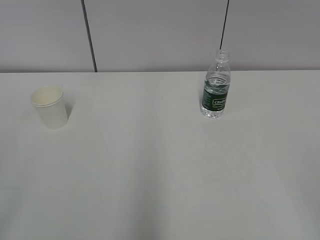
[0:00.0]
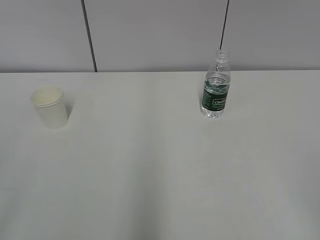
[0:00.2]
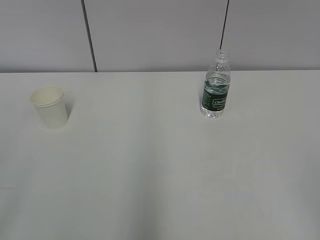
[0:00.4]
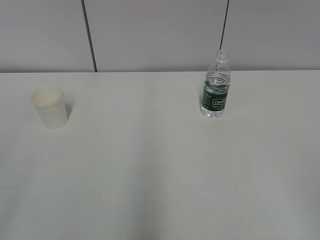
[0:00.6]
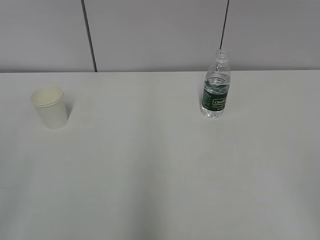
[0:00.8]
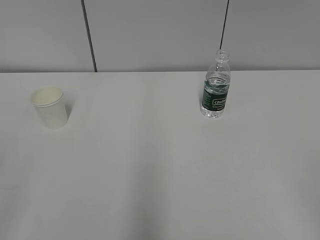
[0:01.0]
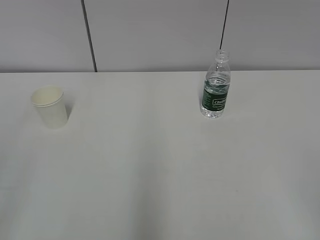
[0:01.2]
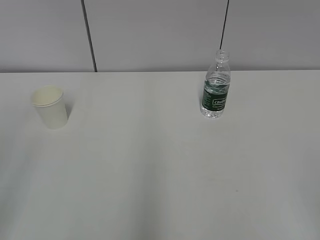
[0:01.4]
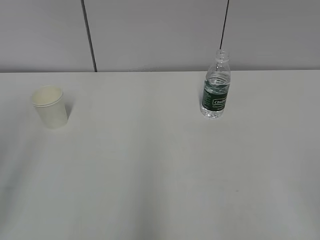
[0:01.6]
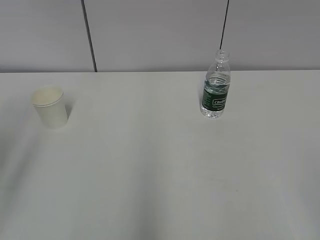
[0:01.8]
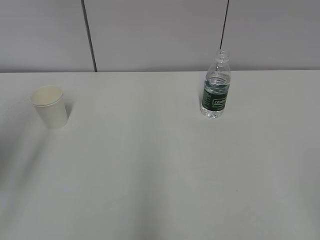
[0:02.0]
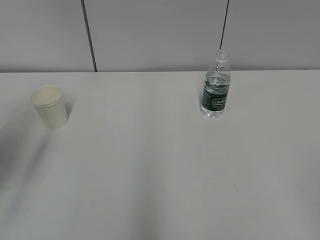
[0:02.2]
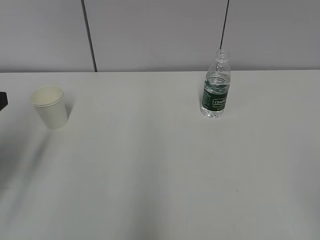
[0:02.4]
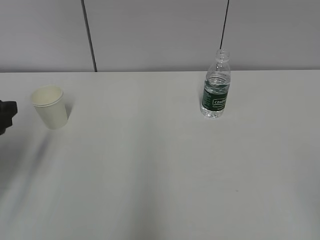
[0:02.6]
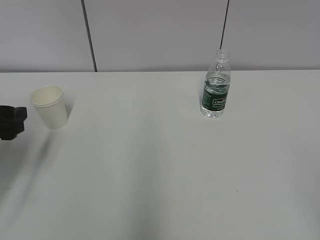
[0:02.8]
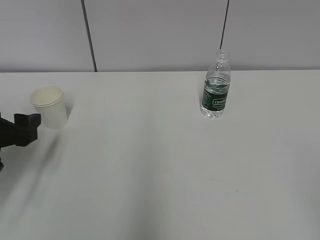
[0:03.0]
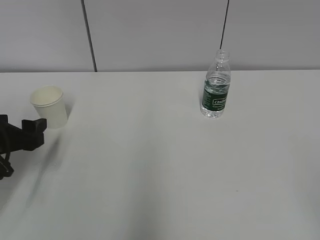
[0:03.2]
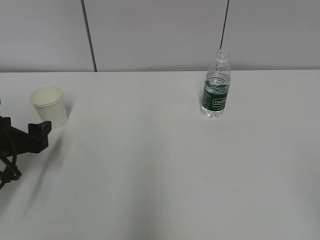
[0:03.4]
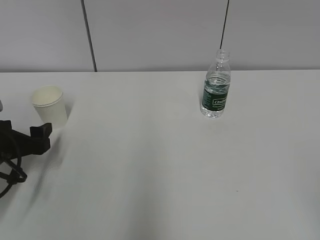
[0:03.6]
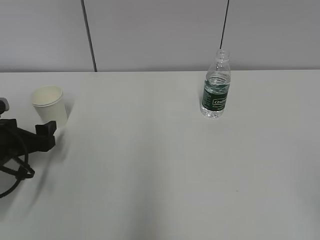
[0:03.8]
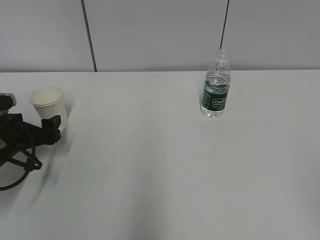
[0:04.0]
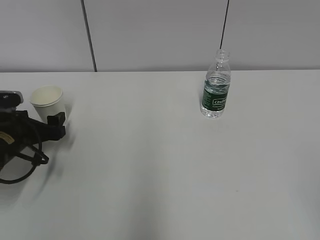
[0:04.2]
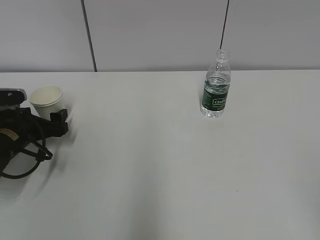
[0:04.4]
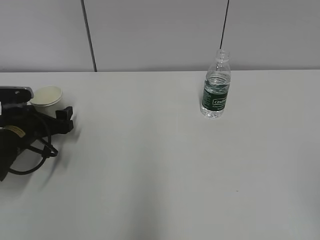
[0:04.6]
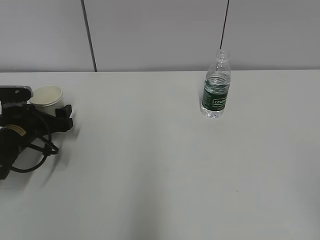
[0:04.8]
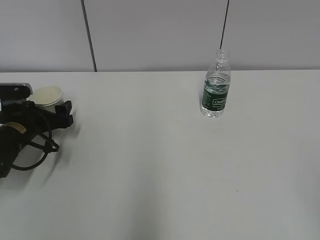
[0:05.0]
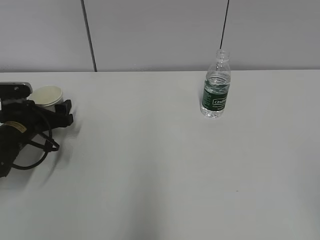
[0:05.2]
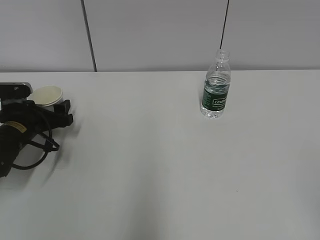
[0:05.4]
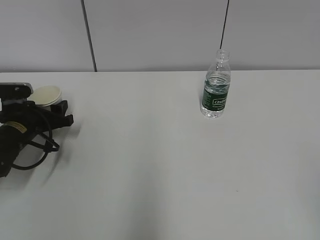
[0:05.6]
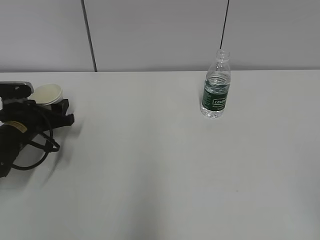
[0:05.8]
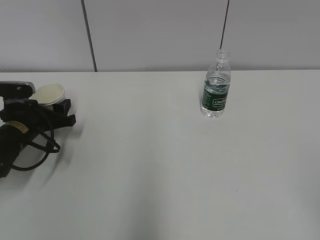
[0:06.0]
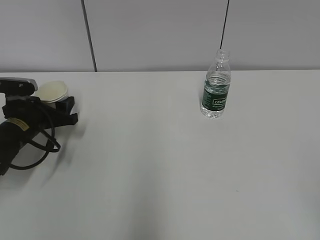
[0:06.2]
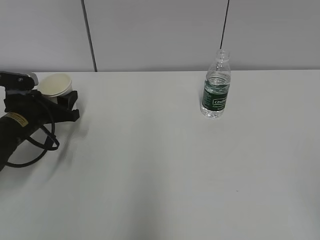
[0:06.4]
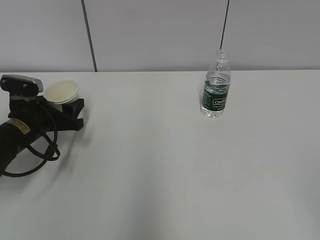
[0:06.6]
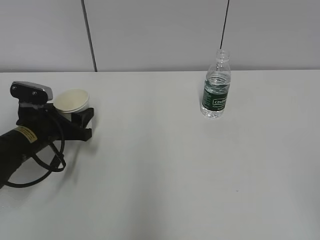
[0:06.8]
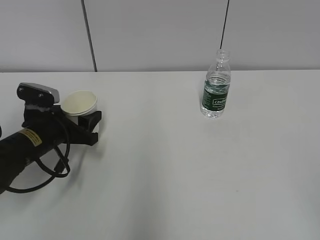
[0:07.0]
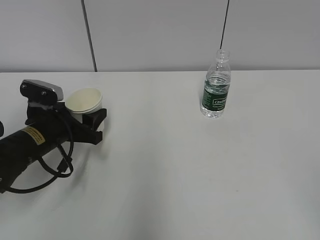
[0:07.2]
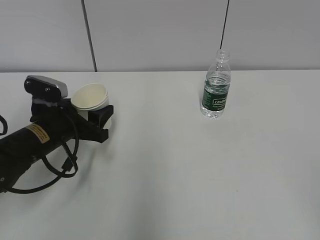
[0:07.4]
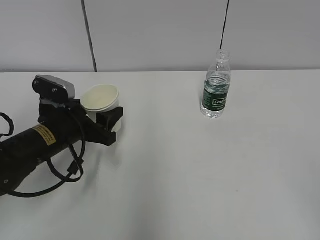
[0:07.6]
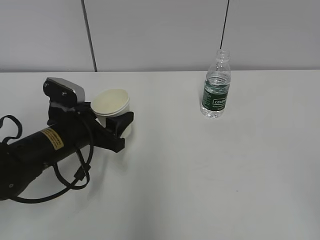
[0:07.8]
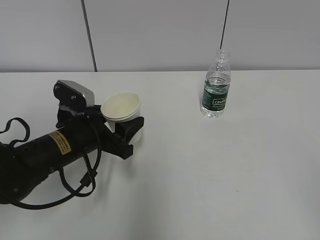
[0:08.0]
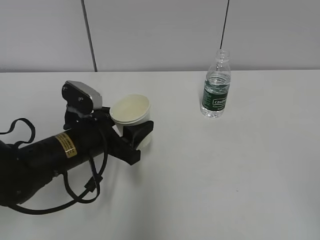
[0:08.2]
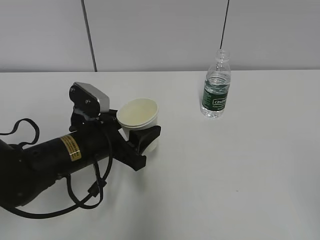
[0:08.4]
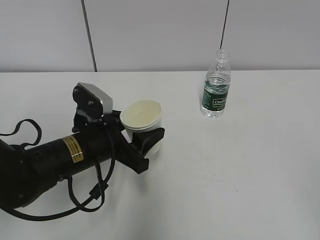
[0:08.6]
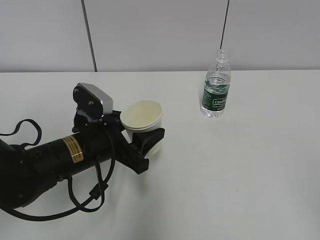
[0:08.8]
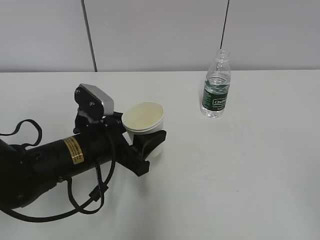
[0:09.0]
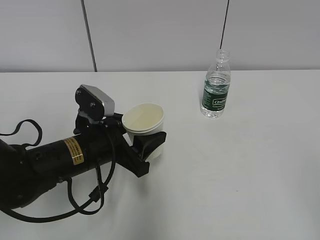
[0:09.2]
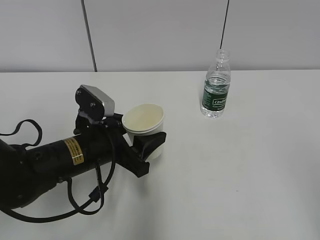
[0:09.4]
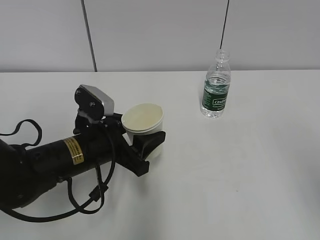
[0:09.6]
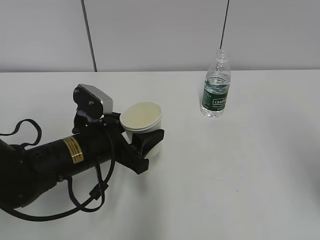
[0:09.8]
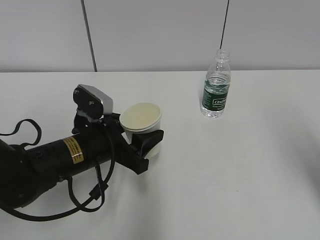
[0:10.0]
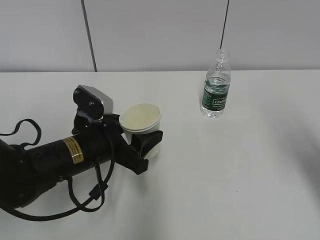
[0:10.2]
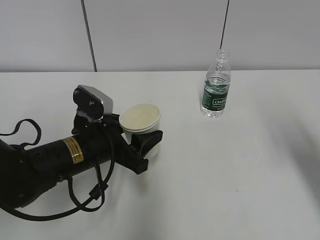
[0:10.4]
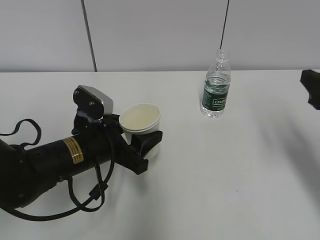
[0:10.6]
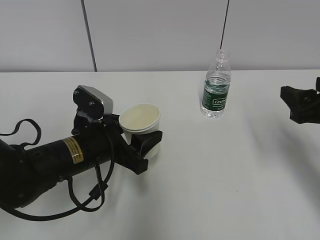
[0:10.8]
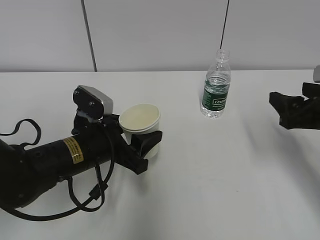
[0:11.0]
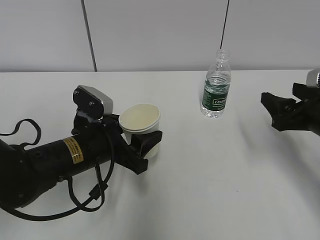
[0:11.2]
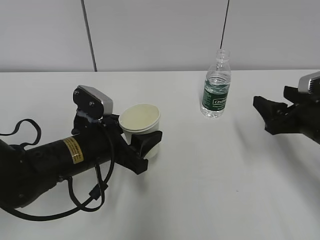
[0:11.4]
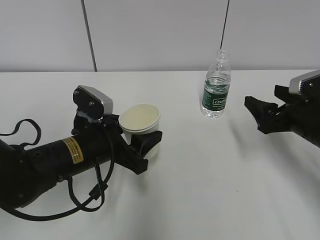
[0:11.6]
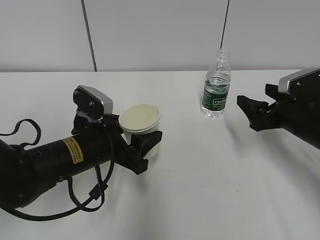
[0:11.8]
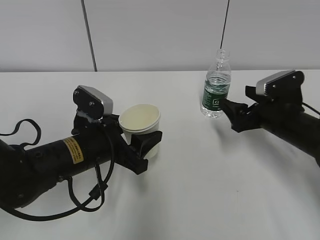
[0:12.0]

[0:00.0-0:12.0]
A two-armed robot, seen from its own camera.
Step, 0:00.0 to 0:04.6: Grab the paper cup with the left hand.
0:01.6 to 0:03.0: The left gripper moves forward and downward, some 25 cm.
0:03.0 to 0:04.4: The left gripper moves forward and downward, roughly 10 cm.
0:04.4 to 0:06.0: The left gripper closes.
0:06.0 to 0:07.6: The left gripper is displaced to the right and backward by approximately 10 cm.
0:07.6 to 0:09.0: The left gripper moves to the right, roughly 5 cm.
0:09.0 to 0:10.4: The right gripper is displaced forward by some 25 cm.
0:10.4 to 0:12.0: The right gripper is displaced downward and forward by about 20 cm.

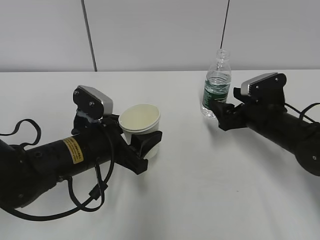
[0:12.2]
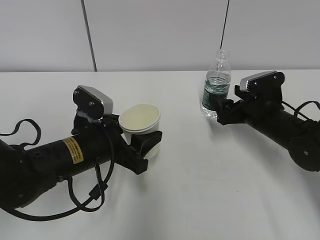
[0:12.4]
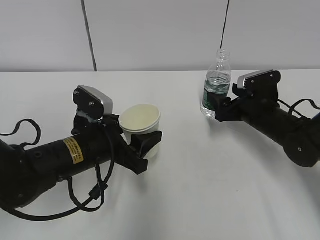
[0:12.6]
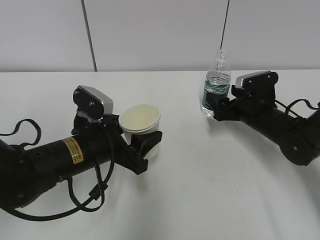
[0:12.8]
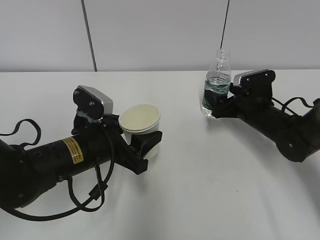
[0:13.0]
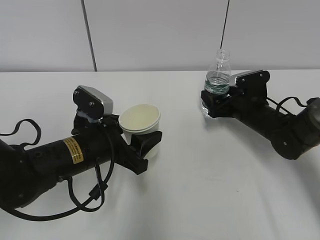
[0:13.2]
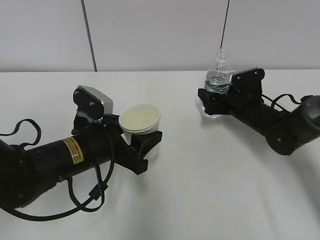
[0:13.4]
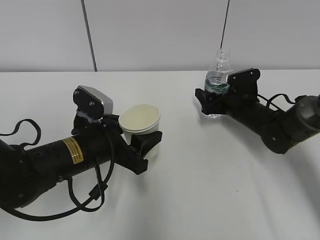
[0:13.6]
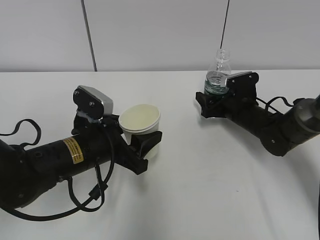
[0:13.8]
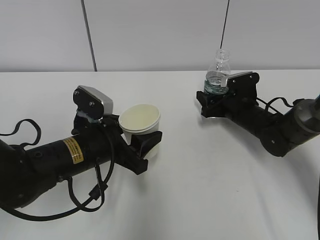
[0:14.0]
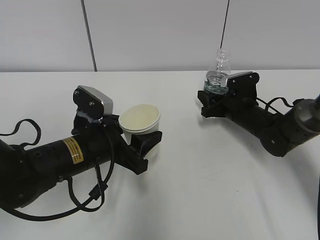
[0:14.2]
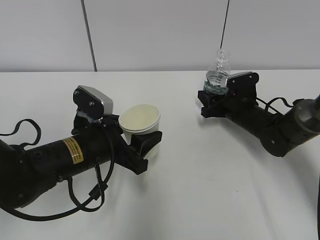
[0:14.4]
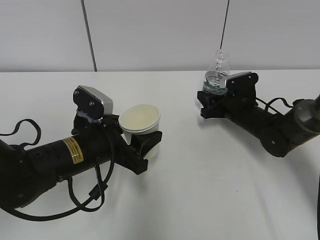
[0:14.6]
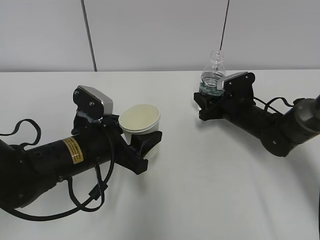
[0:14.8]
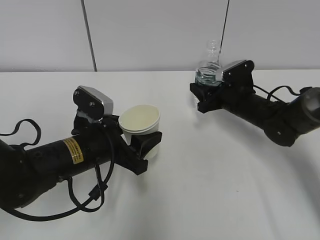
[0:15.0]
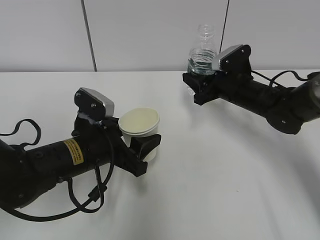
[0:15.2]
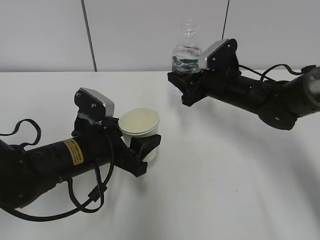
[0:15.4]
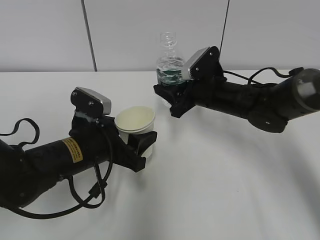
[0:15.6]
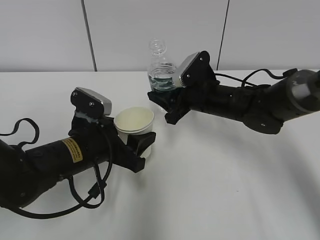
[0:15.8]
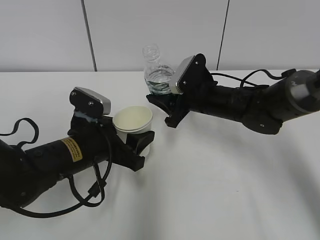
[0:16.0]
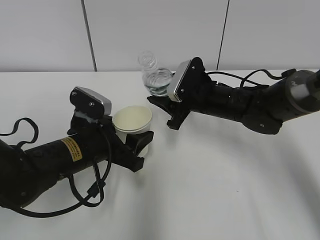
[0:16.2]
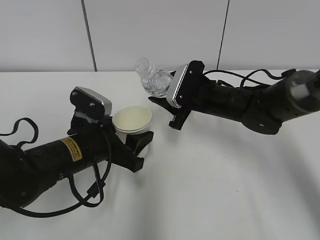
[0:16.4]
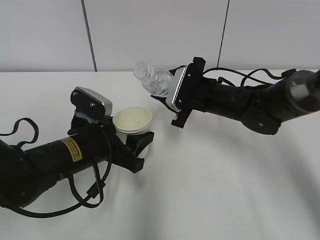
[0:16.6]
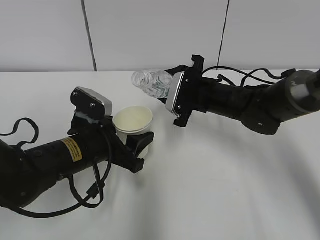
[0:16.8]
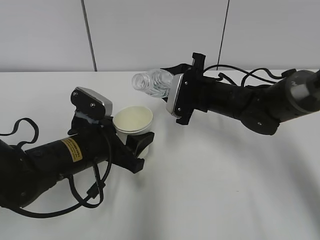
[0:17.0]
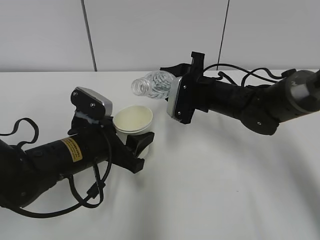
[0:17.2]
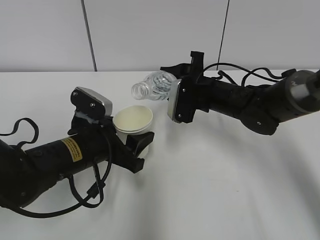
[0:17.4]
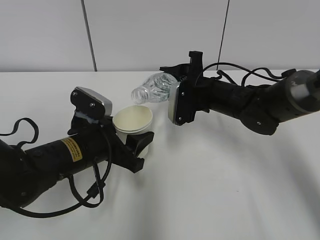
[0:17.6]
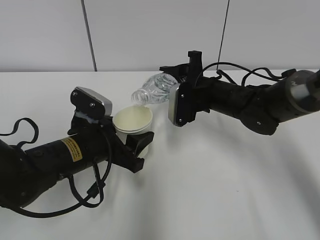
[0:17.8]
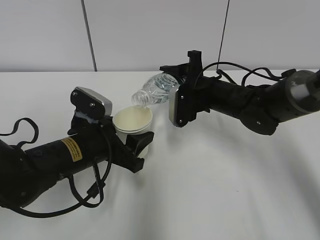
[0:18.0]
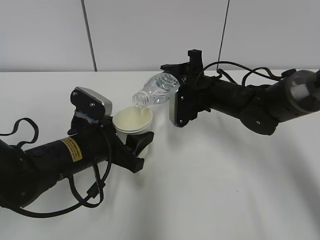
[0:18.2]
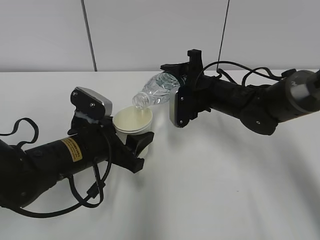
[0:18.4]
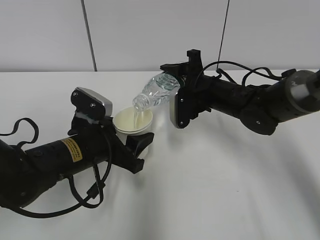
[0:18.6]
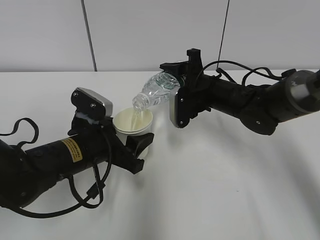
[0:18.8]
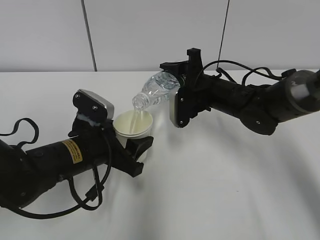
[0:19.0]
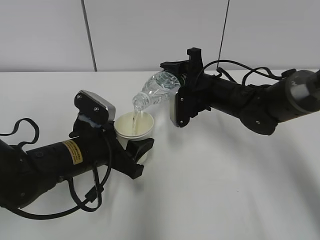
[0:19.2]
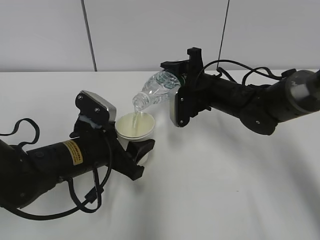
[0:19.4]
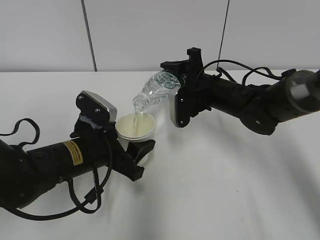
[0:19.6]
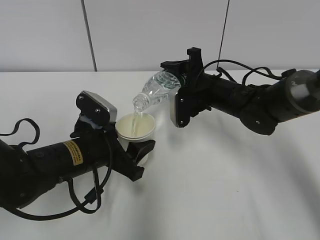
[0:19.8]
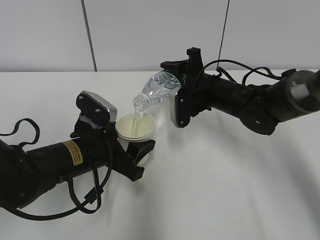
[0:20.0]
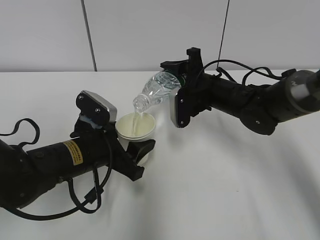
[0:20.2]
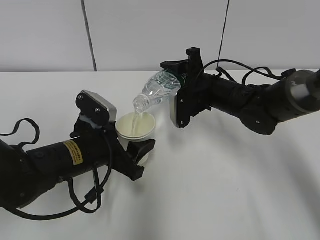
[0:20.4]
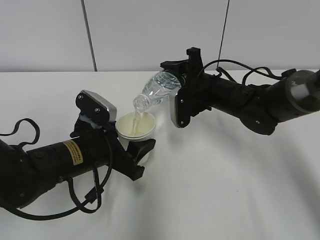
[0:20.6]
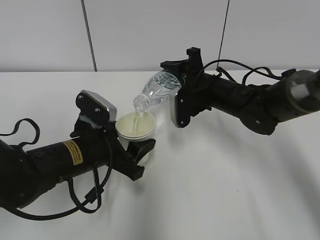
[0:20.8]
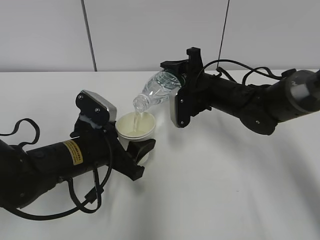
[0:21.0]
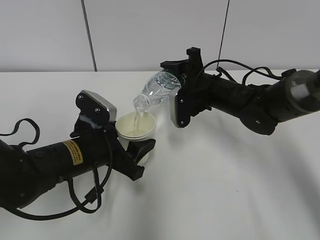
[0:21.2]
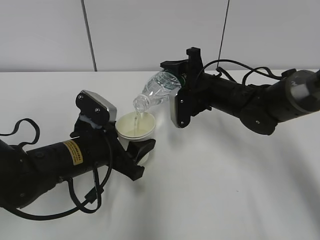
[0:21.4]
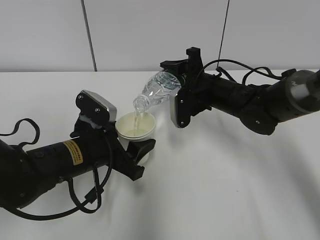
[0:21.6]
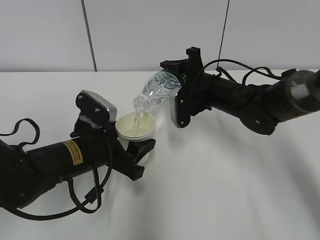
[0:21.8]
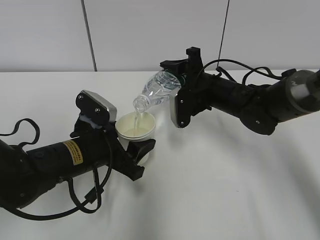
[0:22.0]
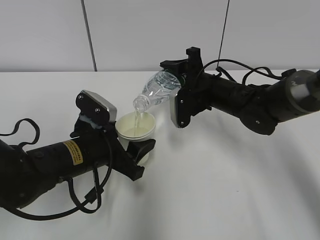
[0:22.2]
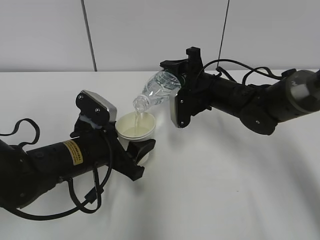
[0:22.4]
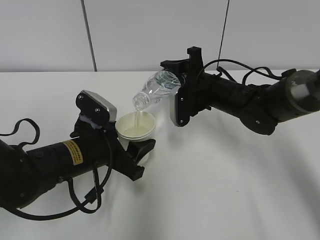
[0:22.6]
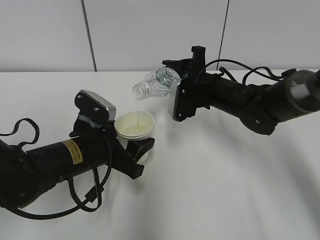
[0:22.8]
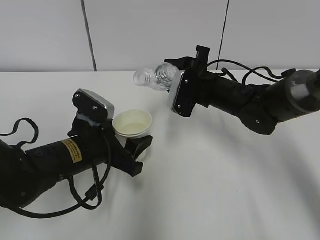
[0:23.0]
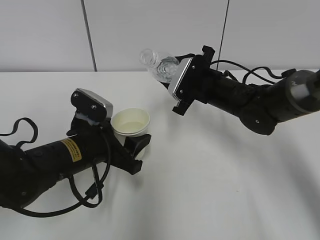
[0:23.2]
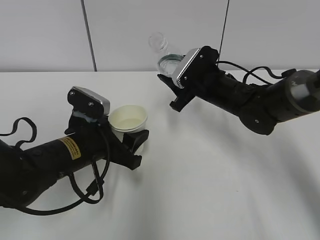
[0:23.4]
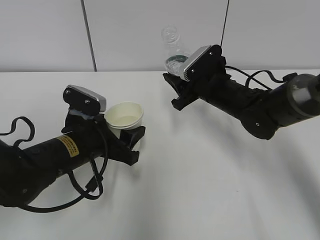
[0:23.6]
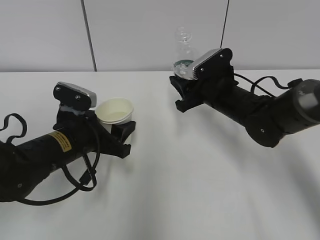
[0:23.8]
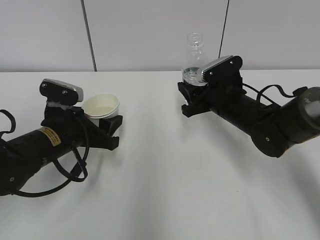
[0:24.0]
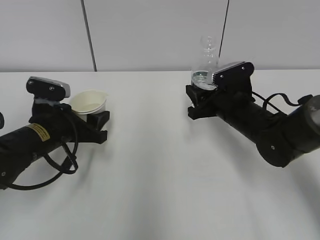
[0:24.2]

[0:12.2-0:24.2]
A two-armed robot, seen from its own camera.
Step, 0:15.4 to 0:19.0: Fill water with the left hand.
Step, 0:15.4 to 0:19.0: Pour water with the right hand.
Step, 0:19.2 to 0:19.8: Collect water with the right hand.
Step, 0:21.4 to 0:22.8: Place the water bottle with the right hand.
0:12.2 to 0:13.8: The right gripper shifts about 10 cm forward.
0:13.8 to 0:15.2: The right gripper is displaced upward by roughly 5 cm, and closes.
0:15.2 to 0:16.6: The right gripper travels to the left by some 5 cm.
0:18.2 to 0:19.8: The grippers move only a little.
0:19.8 to 0:22.6: The two grippers keep their place.
0:22.6 to 0:24.2: The left gripper moves to the left, about 5 cm. Meanwhile the right gripper changes place by about 5 cm.
